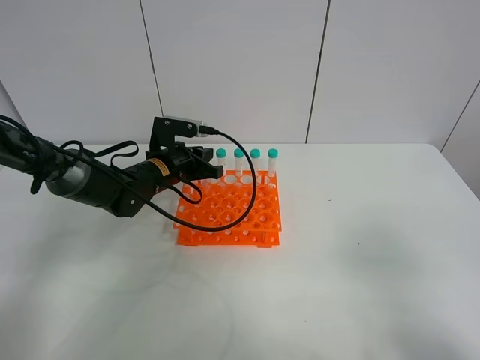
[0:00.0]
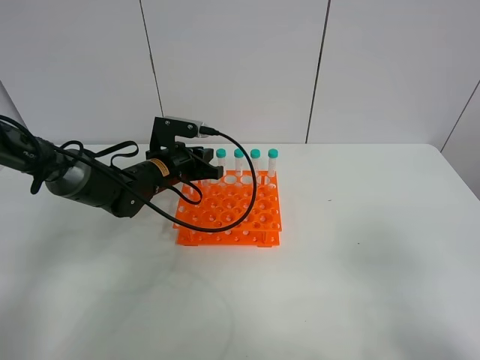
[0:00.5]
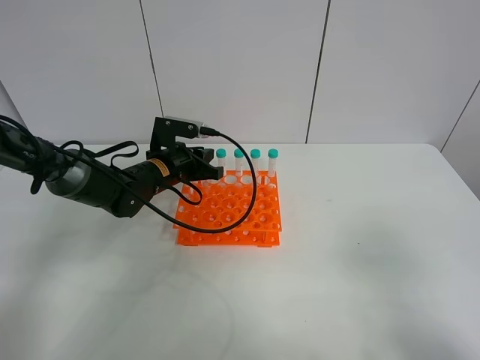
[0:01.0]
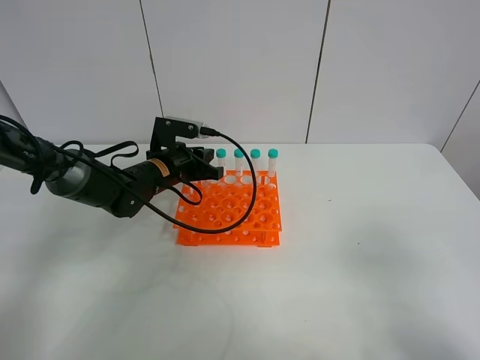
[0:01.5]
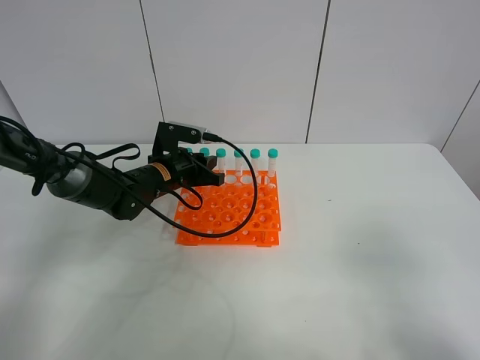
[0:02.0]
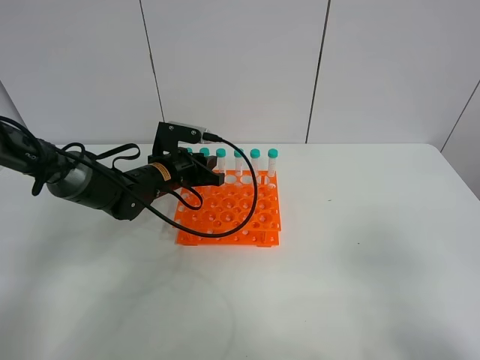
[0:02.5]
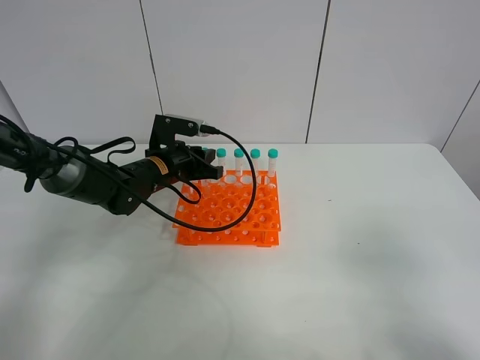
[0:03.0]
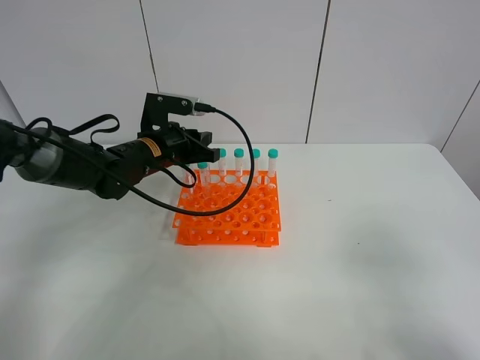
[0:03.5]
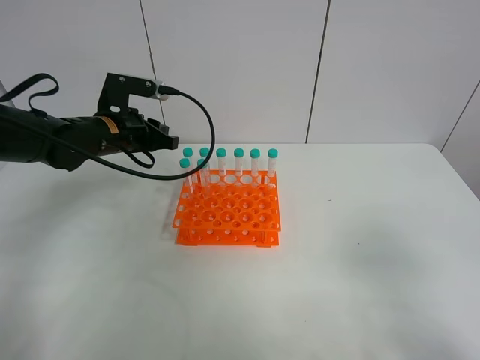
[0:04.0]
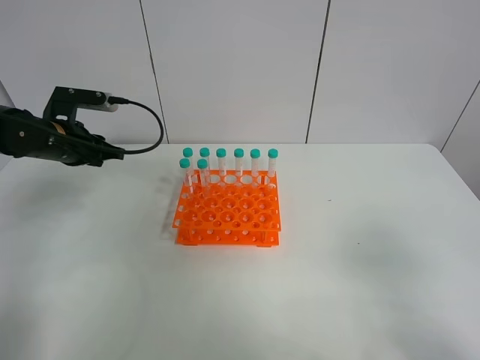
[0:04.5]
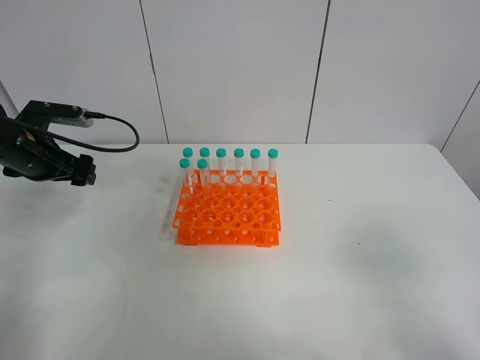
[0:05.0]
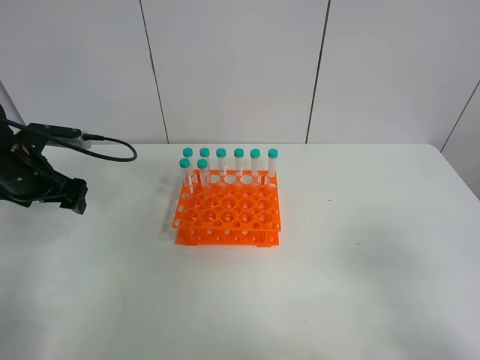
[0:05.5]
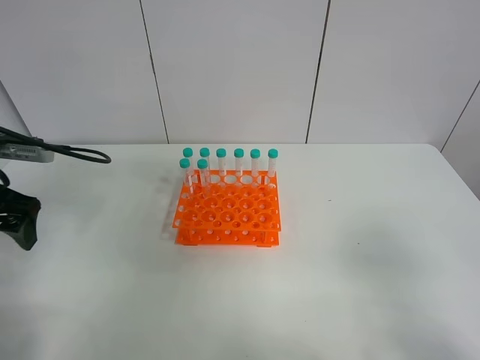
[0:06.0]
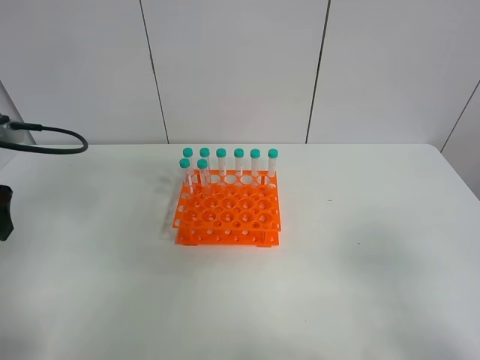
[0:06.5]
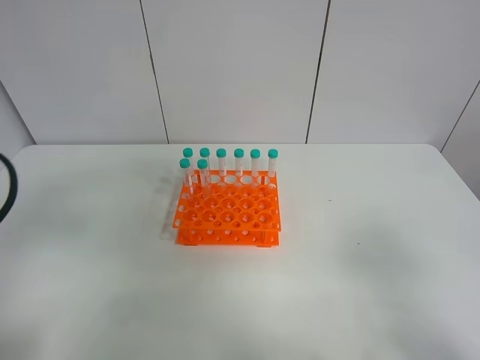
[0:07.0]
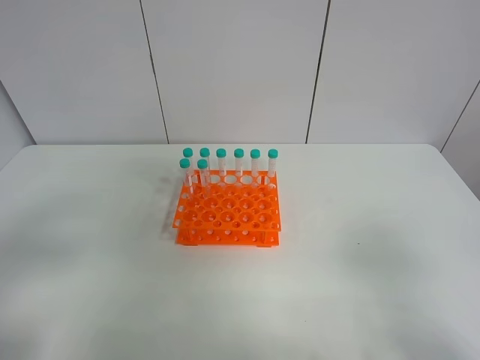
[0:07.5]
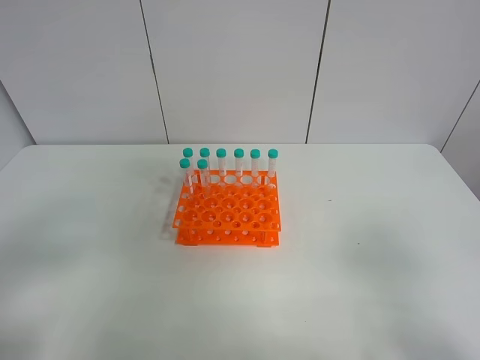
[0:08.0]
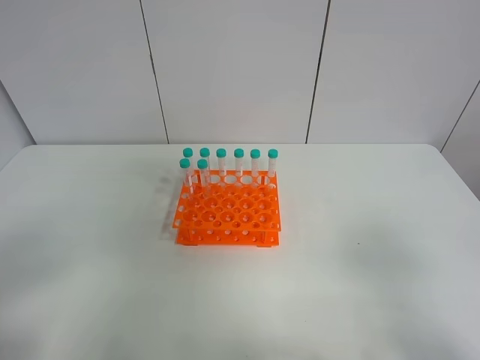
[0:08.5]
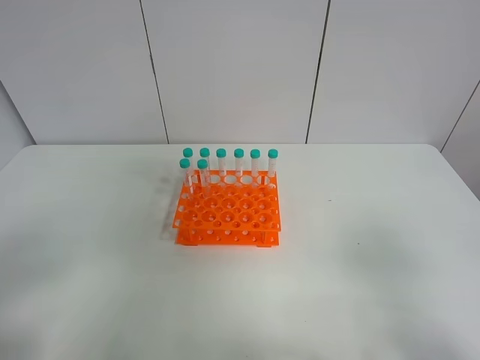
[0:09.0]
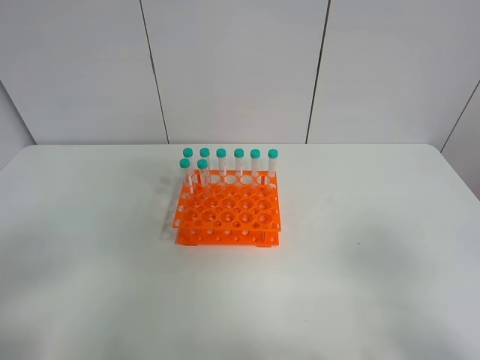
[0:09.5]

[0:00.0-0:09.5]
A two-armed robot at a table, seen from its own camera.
Task of the whole recording: Put the test tube on the table back onto the test tube rack.
Step, 0:00.0 to 0:04.0: Place the test tube on the test tube rack with the left gripper.
0:00.0 to 0:02.0: The two grippers keep their place.
0:02.0 to 0:04.0: The left gripper moves upward and to the left, approximately 10 cm.
0:04.0 to 0:05.5: The left gripper moves to the left and backward, roughly 15 cm, and opens.
0:05.5 to 0:07.5: The left gripper shifts roughly 25 cm backward.
